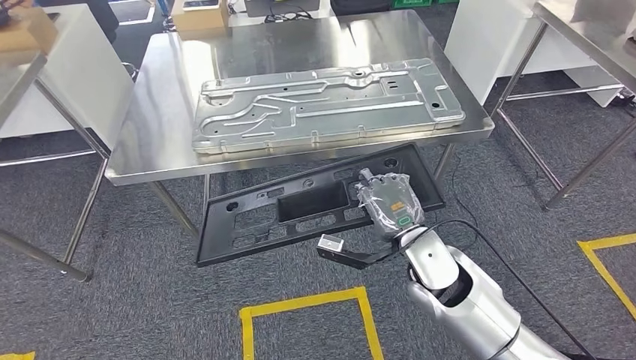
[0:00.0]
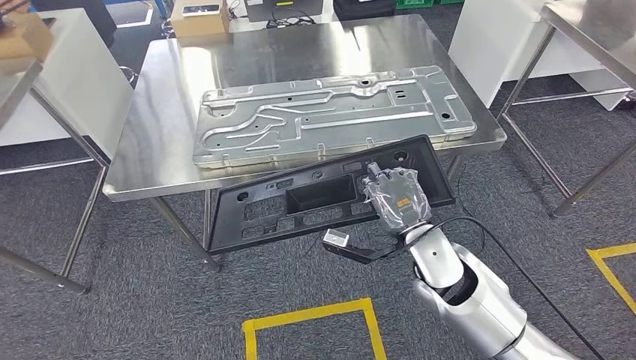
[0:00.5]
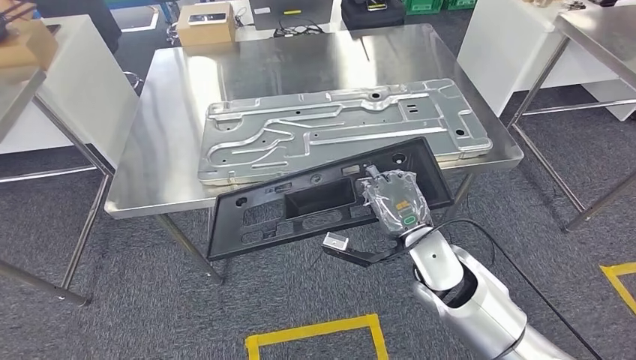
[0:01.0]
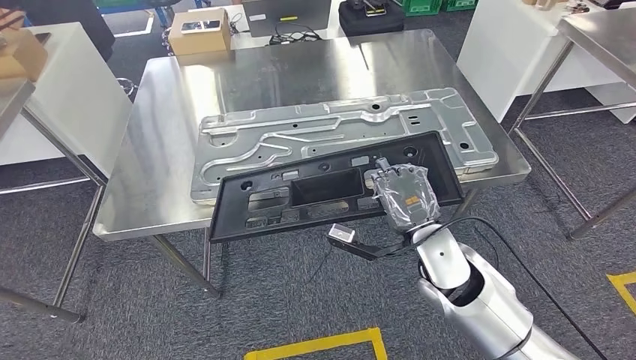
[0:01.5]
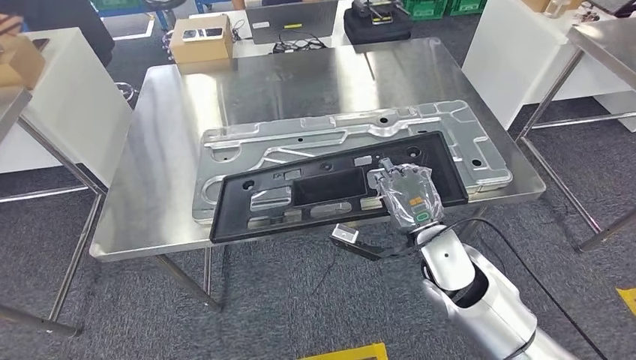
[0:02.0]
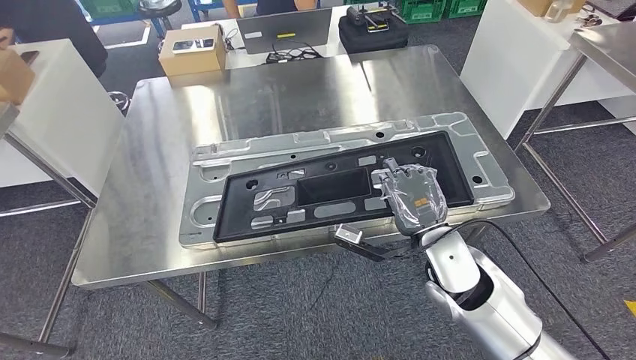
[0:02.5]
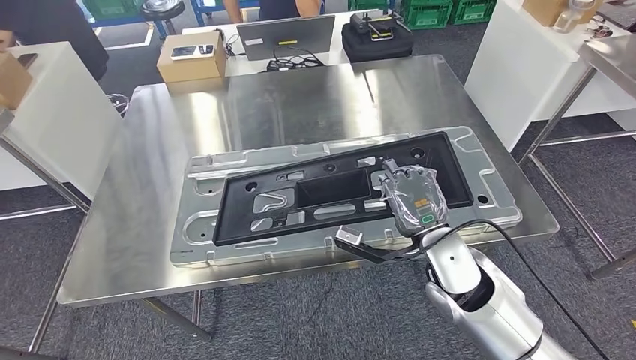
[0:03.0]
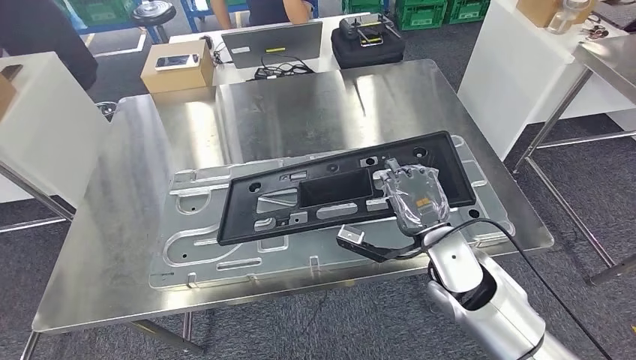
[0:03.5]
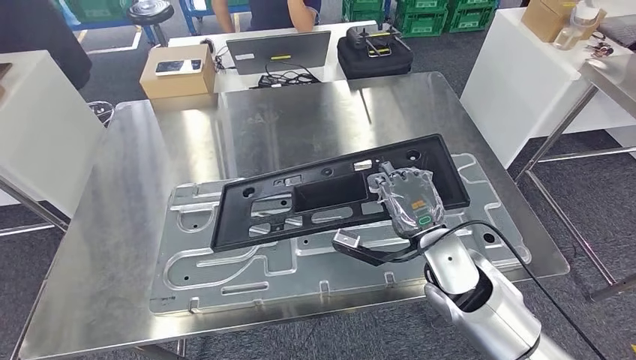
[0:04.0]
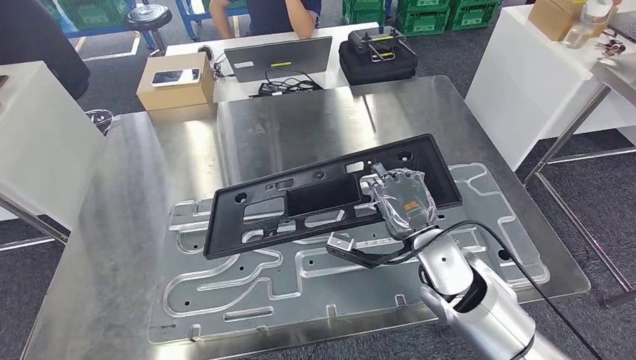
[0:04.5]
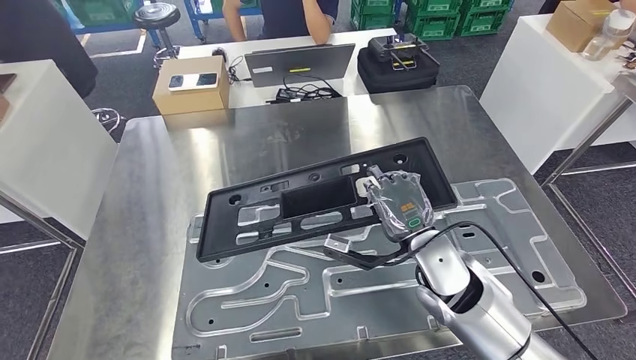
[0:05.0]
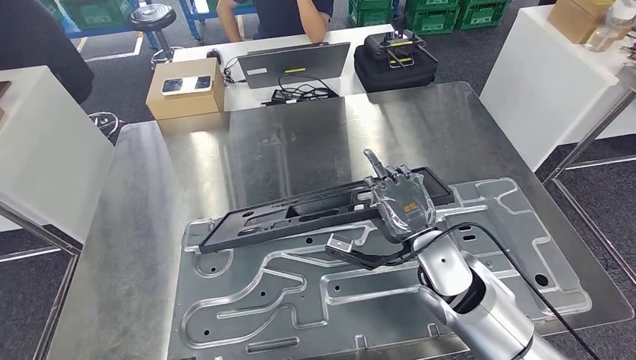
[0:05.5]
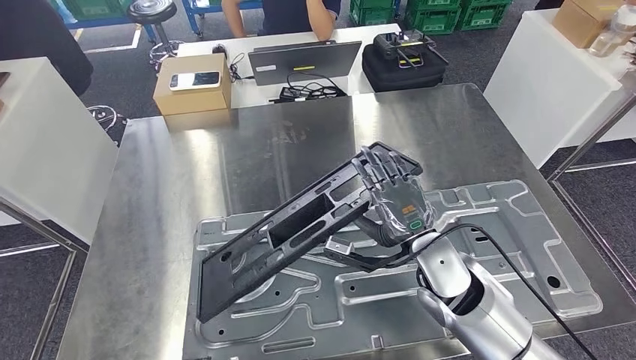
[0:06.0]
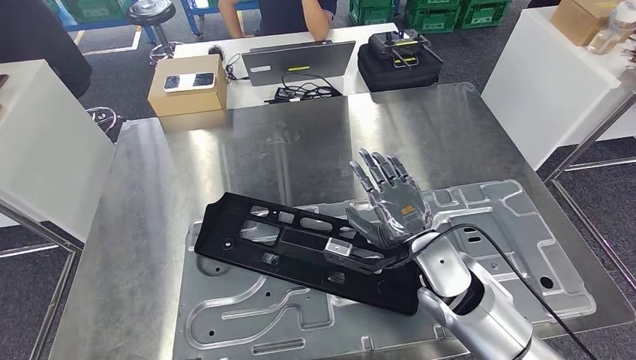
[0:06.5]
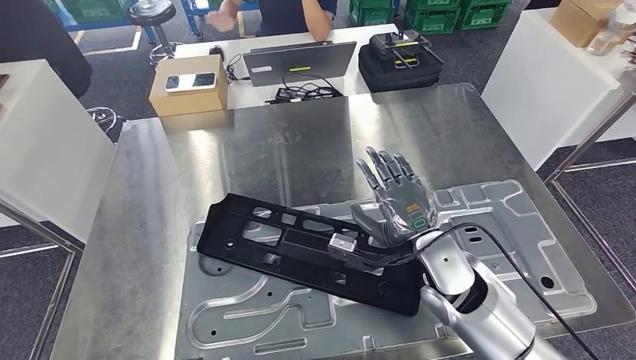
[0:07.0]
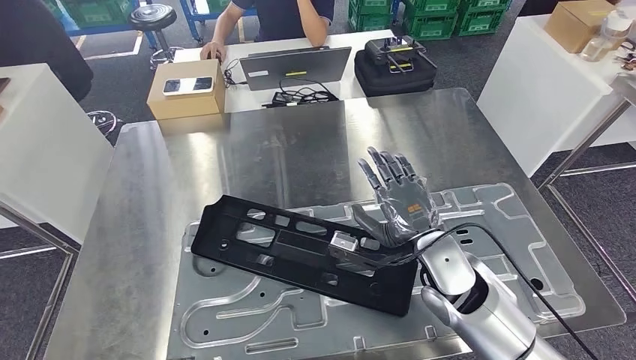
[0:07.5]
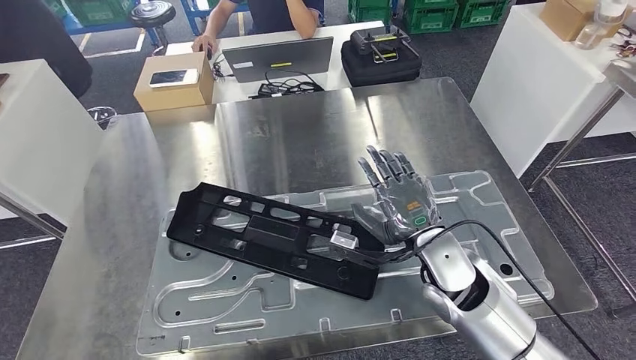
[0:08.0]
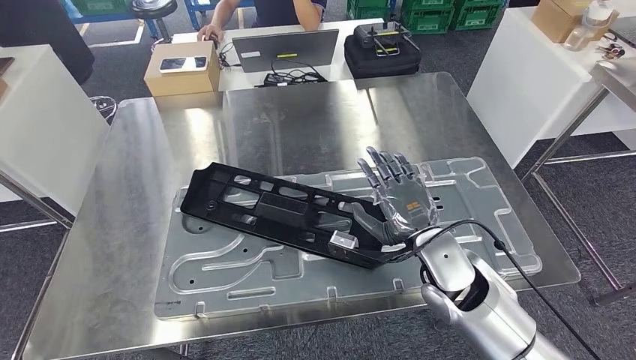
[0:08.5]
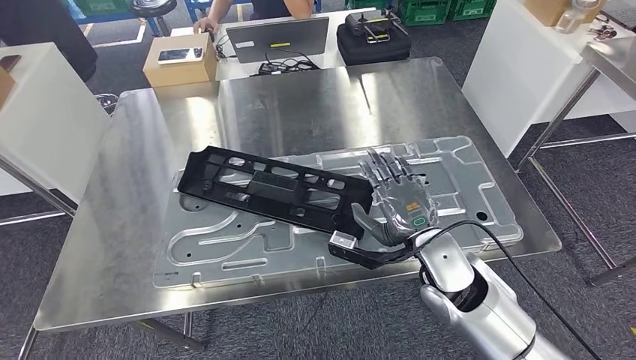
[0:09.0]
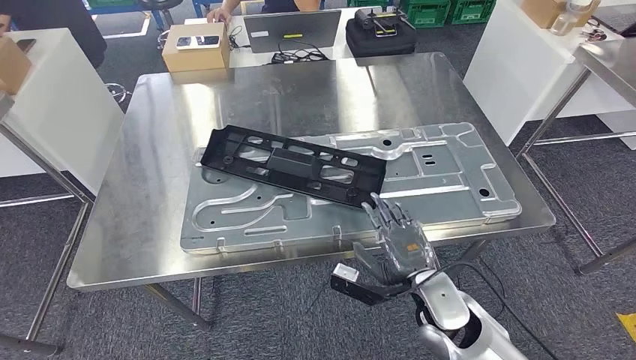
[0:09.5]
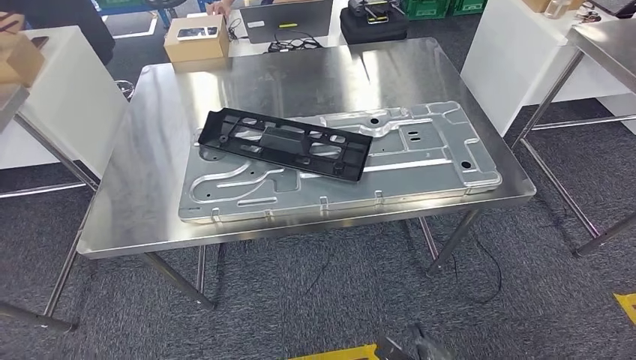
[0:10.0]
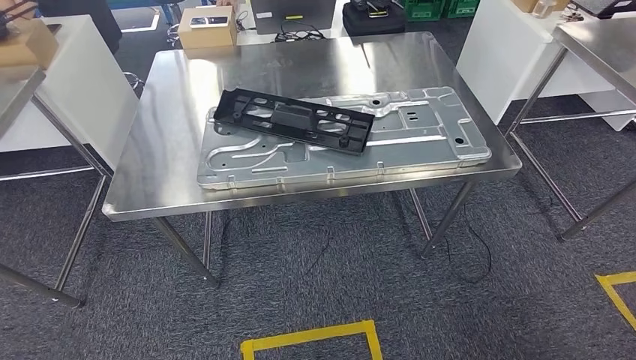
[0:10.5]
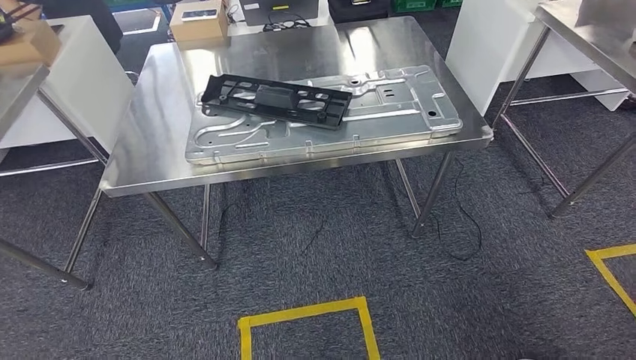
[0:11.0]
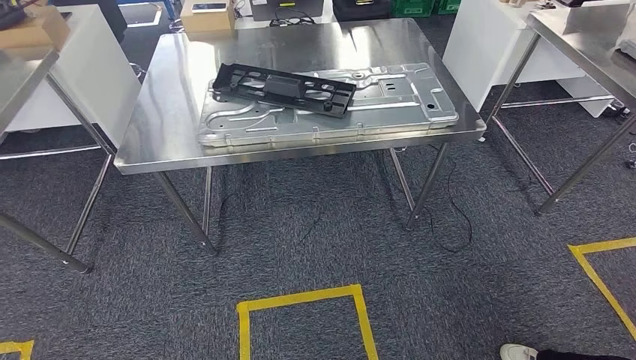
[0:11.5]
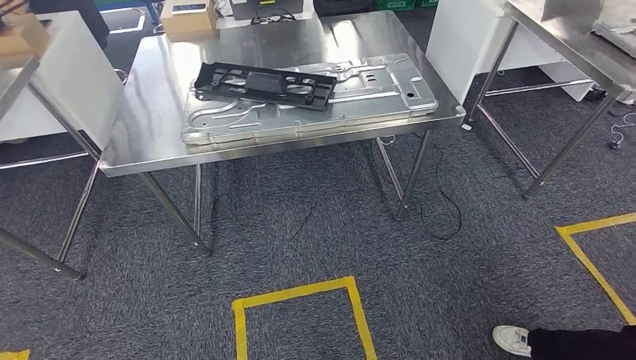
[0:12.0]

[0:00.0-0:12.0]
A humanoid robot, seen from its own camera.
Step, 0:00.0 to 0:10.0: Insert the large material into the corresponding slot on the workbench.

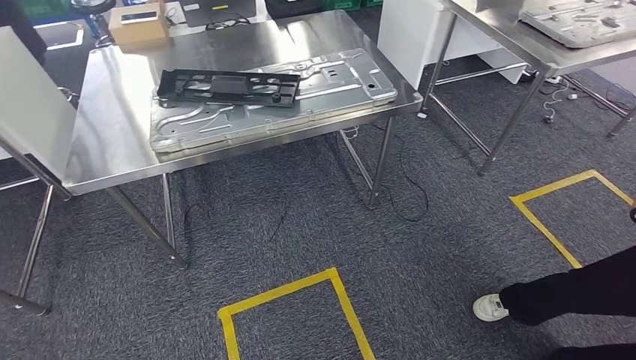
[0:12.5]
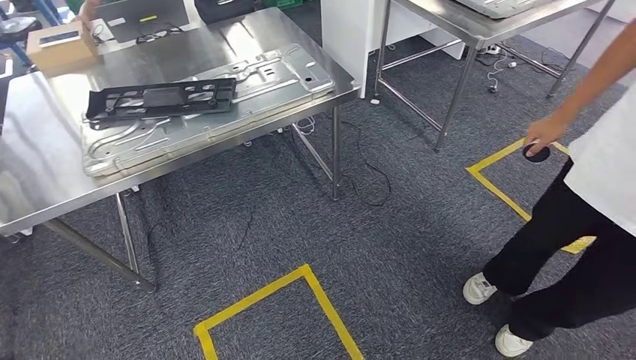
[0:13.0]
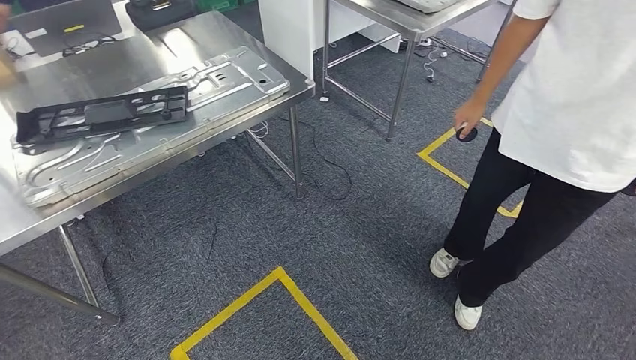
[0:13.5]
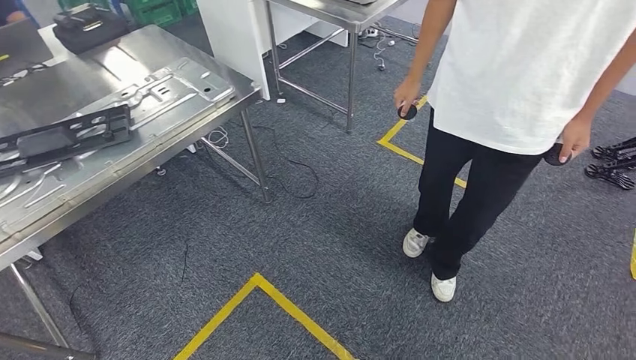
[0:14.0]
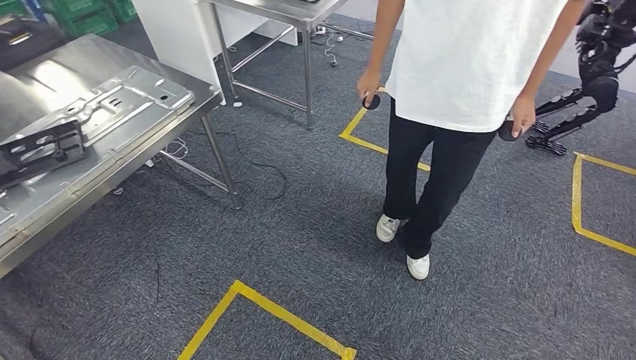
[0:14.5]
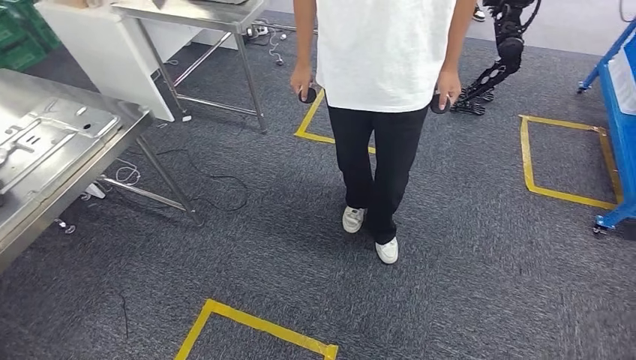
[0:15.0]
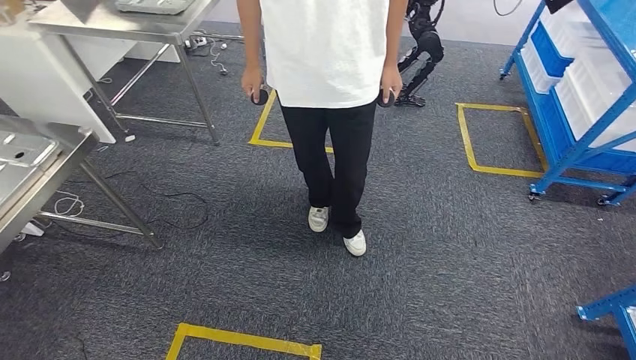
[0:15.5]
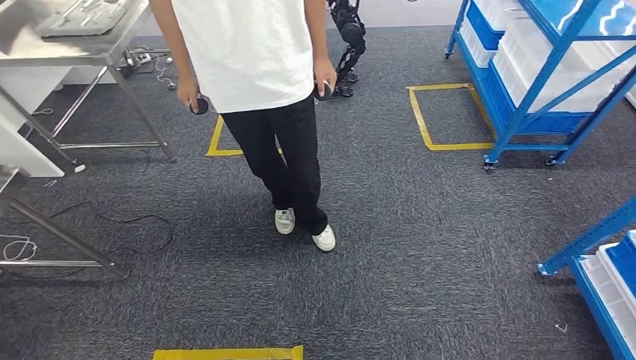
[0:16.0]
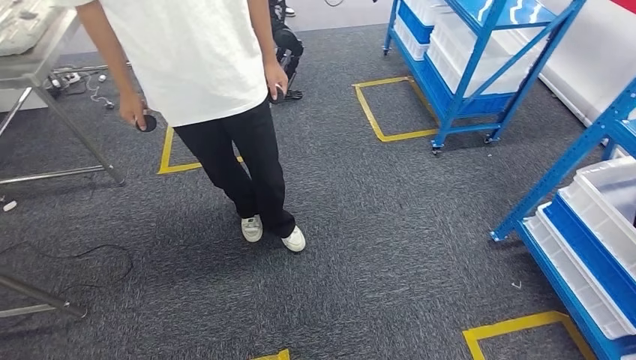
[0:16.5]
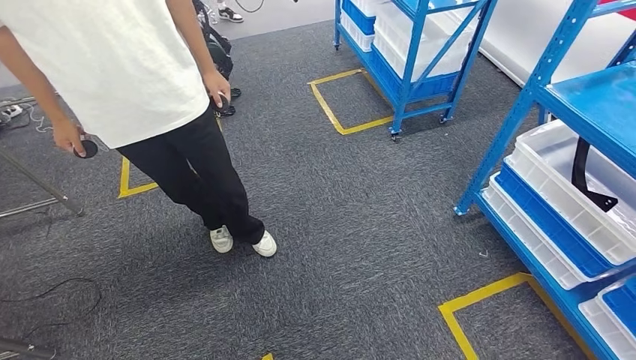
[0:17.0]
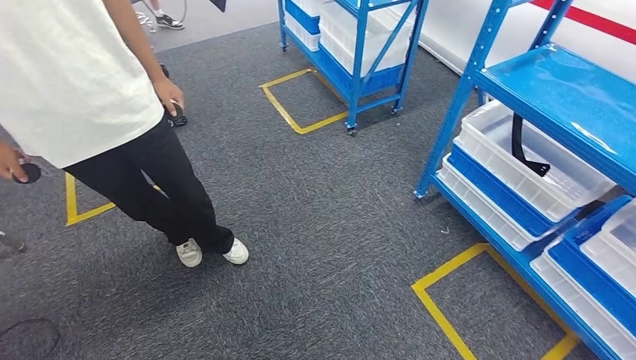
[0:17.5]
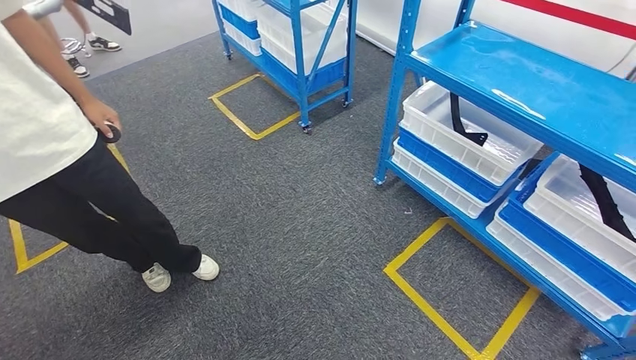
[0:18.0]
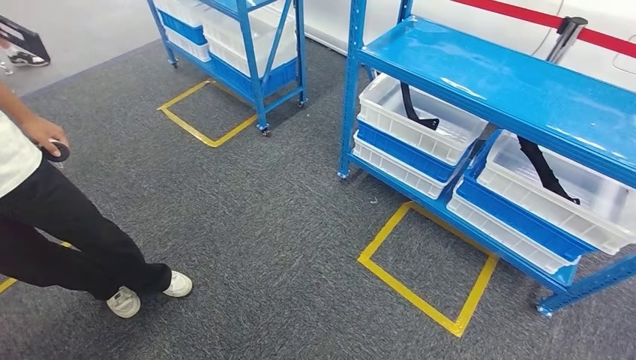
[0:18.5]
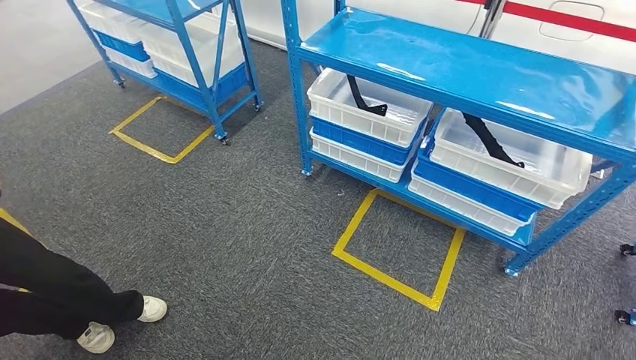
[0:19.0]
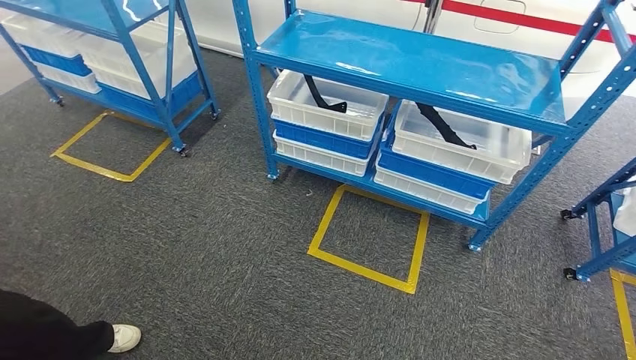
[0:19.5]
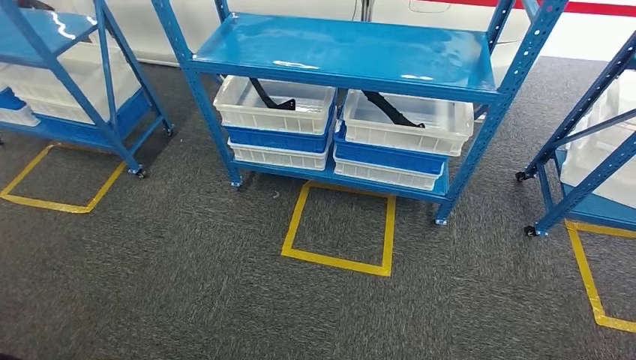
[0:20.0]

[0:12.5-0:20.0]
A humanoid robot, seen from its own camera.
Step, 0:12.5 to 0:20.0: Move to the initial position of the shelf.
